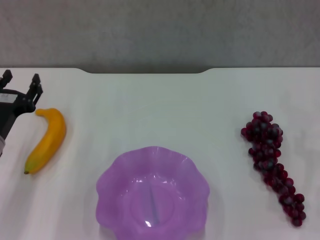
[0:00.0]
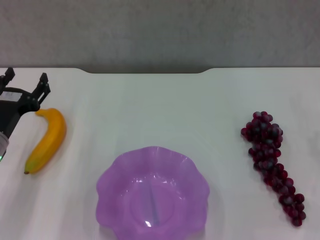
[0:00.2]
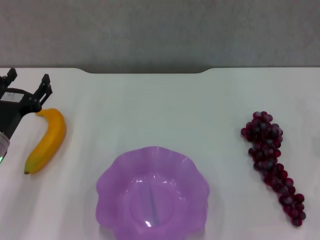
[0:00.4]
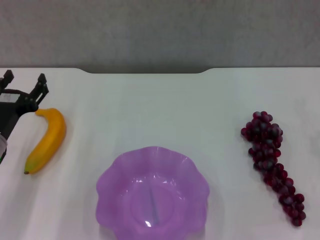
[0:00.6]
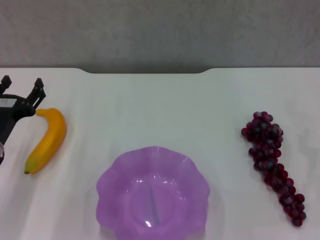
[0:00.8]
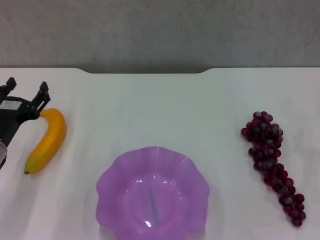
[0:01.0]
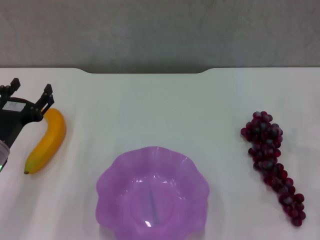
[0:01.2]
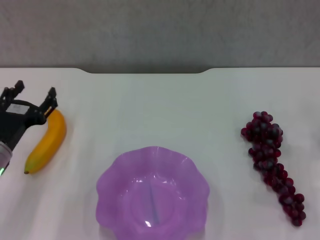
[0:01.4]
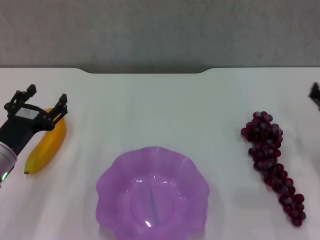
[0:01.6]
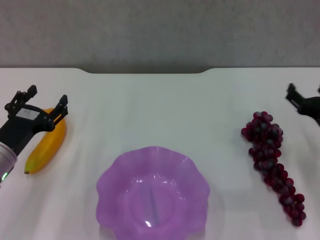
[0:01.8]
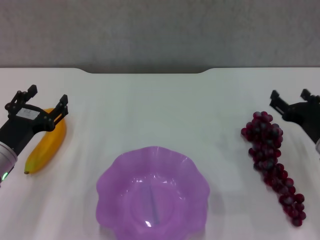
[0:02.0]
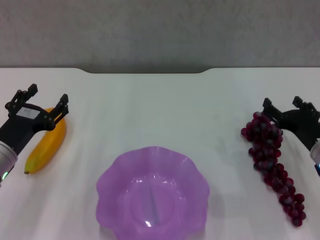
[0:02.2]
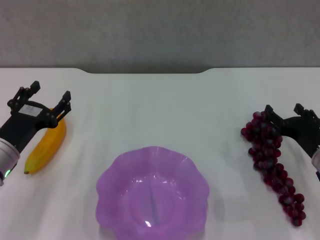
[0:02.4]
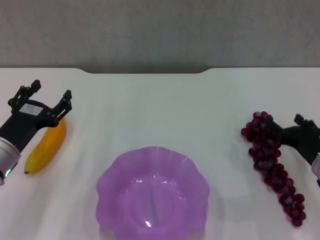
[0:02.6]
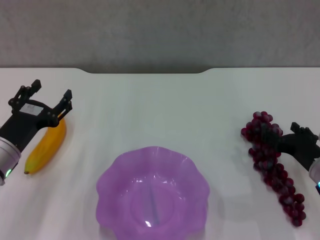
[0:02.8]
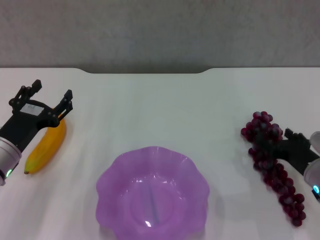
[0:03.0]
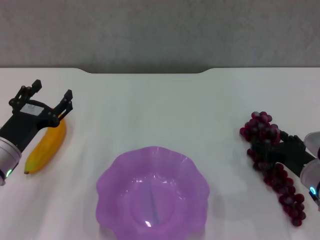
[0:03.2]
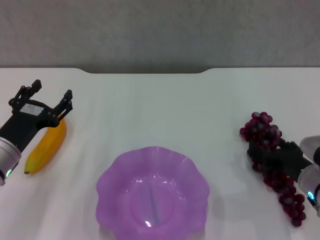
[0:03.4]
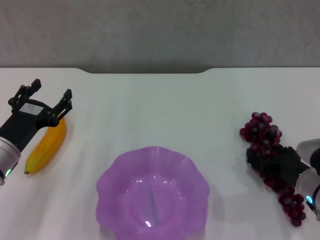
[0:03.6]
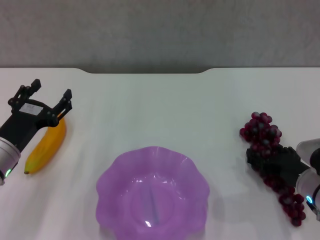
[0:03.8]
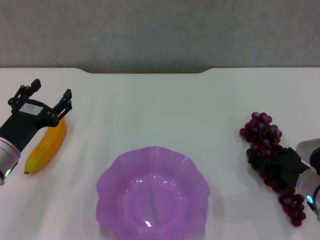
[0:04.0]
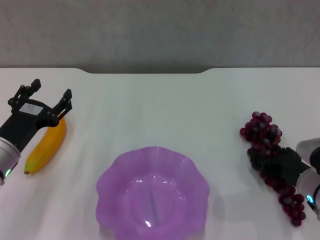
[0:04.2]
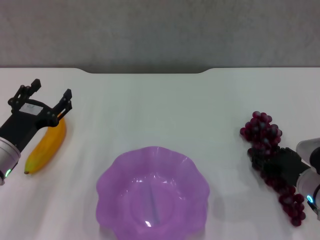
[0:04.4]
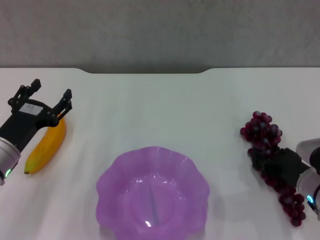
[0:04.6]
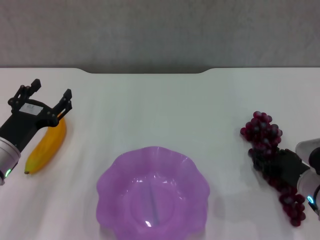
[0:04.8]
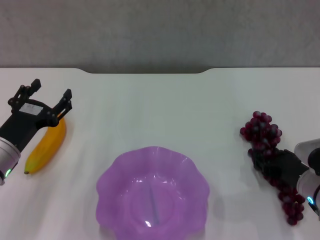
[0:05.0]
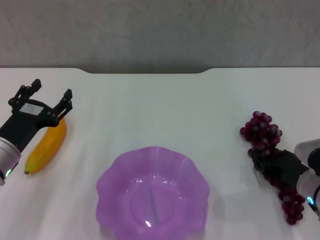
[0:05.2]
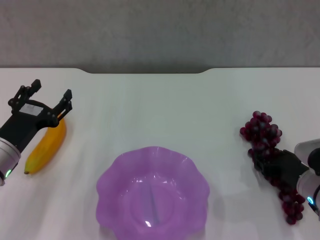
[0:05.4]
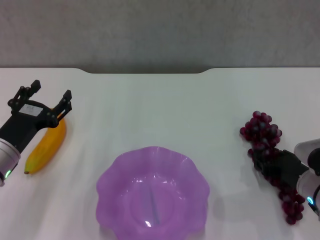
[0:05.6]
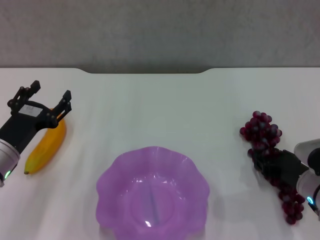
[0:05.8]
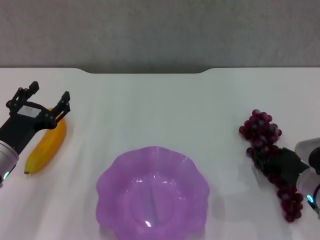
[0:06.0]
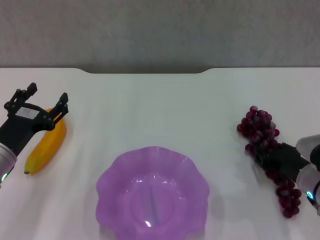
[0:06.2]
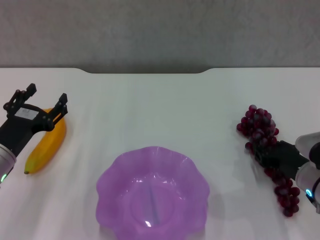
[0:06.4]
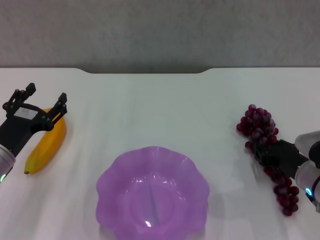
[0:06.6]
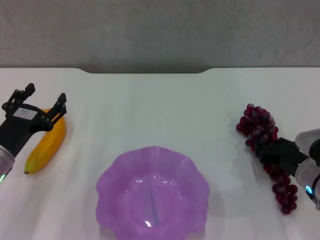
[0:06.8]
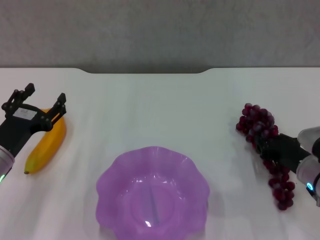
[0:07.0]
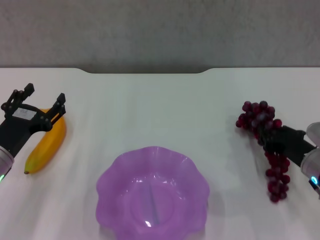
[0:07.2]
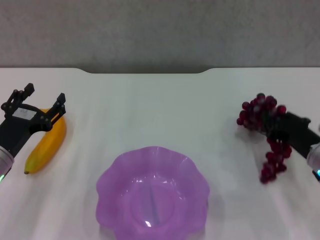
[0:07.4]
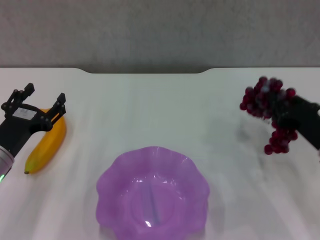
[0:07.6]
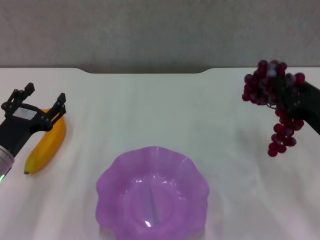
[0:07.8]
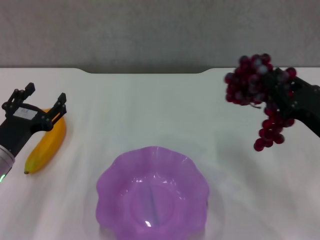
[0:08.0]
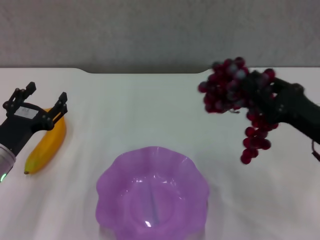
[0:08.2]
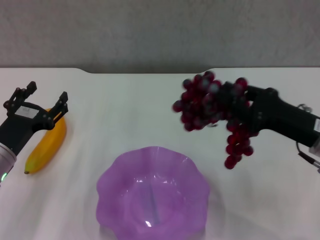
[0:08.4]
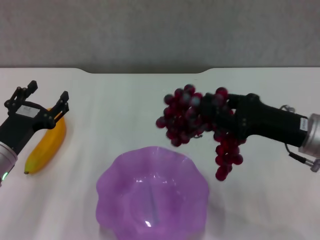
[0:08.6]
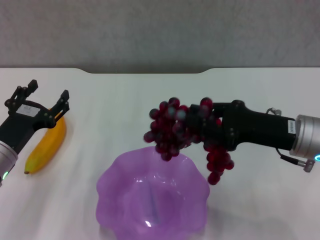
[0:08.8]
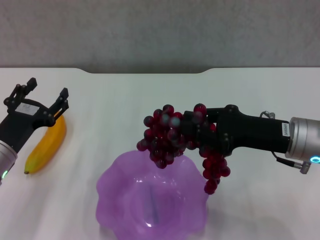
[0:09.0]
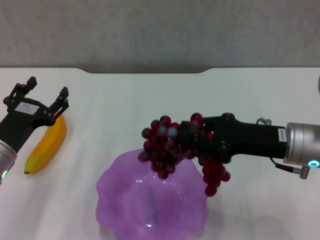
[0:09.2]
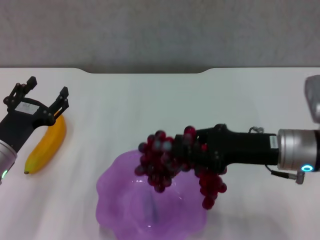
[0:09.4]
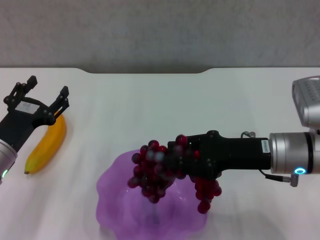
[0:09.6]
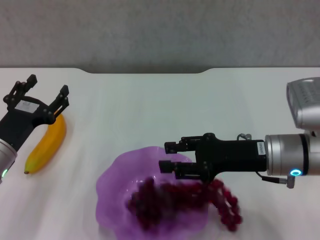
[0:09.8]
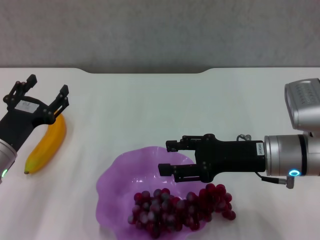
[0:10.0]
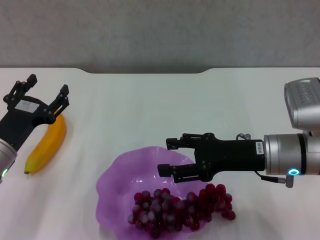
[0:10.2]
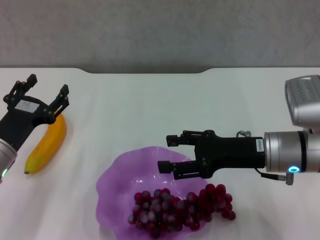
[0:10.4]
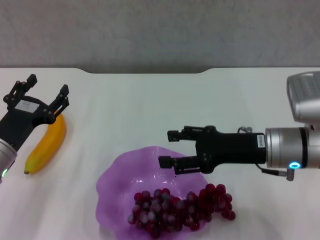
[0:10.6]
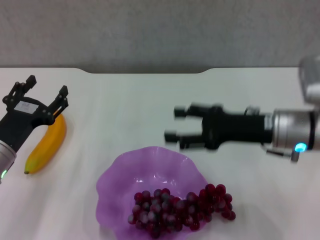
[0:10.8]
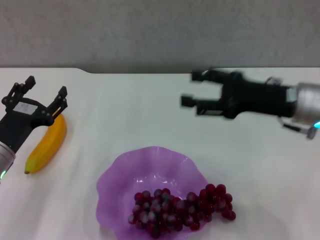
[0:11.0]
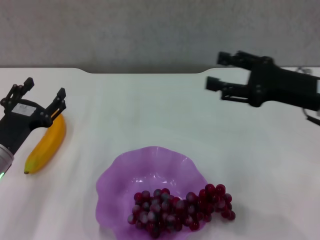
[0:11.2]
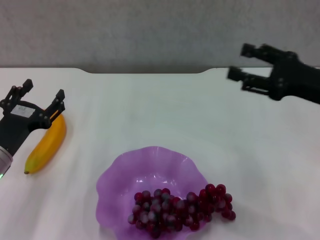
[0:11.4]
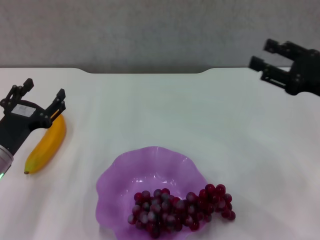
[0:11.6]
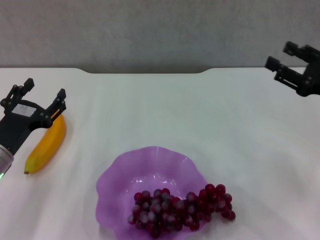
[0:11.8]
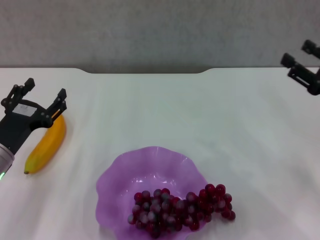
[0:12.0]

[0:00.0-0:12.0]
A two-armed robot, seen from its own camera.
Step, 0:00.0 to 0:06.0: Grasp the grape with right gripper.
Step, 0:06.2 to 0:10.2: Place the grape in the purple plate with right gripper.
0:00.0 to 0:01.6: The left gripper opens.
0:01.6 to 0:03.0: The right gripper moves to the left, approximately 5 cm.
0:03.0 to 0:04.4: The grippers stay close to where they were, moving slightly.
0:04.4 to 0:06.0: Neither gripper changes place.
0:06.0 to 0:07.6: The right gripper goes approximately 5 cm upward.
0:07.6 to 0:09.0: The right gripper heads upward and to the left, covering some 10 cm.
0:09.0 to 0:10.4: The right gripper opens.
0:10.4 to 0:12.0: The right gripper shifts about 15 cm to the right.

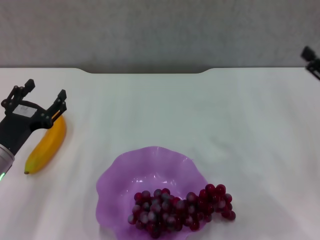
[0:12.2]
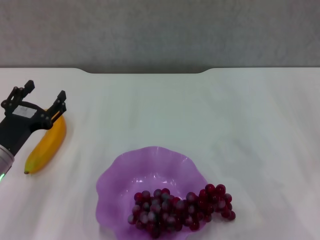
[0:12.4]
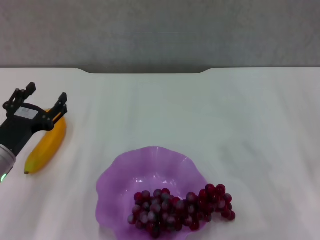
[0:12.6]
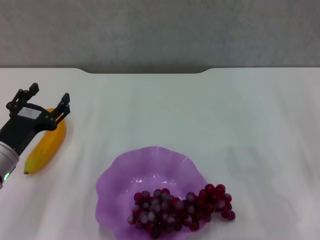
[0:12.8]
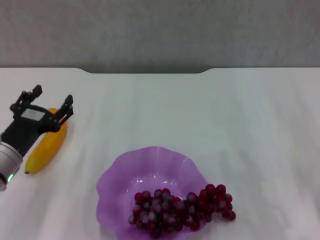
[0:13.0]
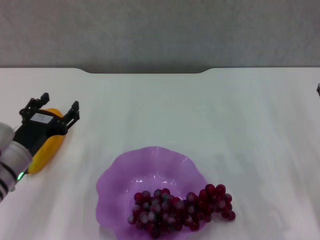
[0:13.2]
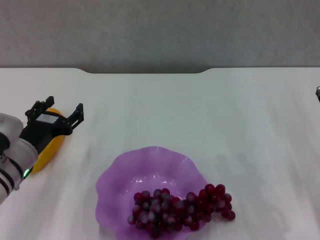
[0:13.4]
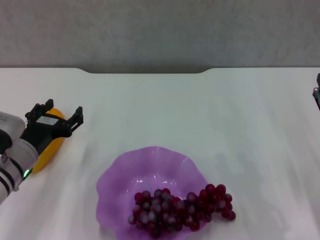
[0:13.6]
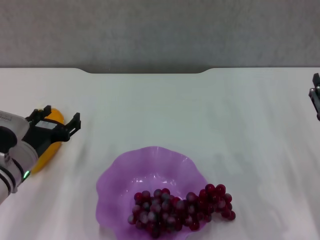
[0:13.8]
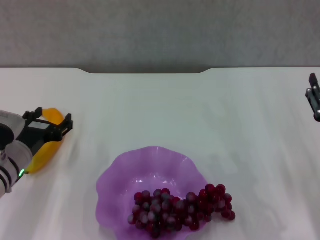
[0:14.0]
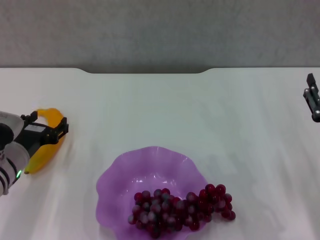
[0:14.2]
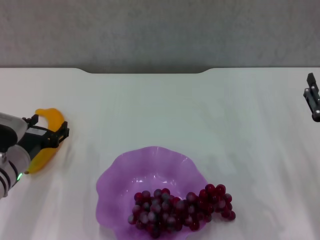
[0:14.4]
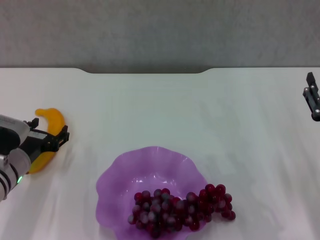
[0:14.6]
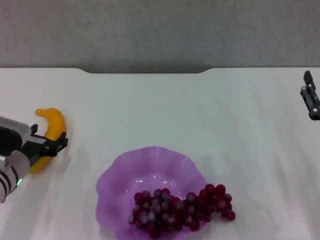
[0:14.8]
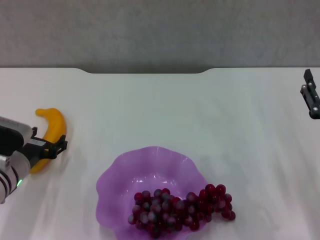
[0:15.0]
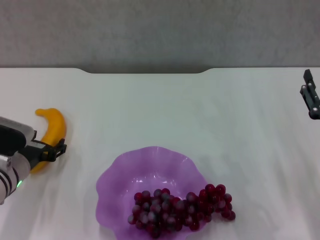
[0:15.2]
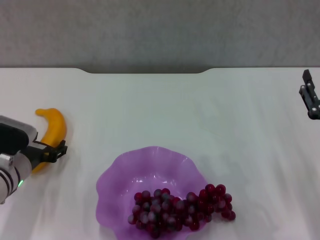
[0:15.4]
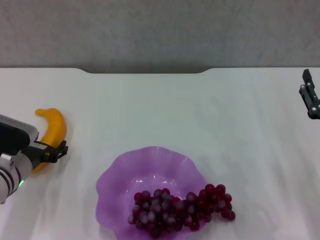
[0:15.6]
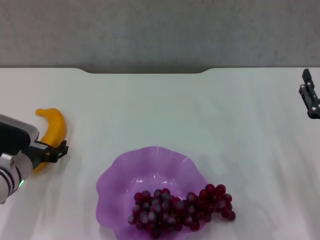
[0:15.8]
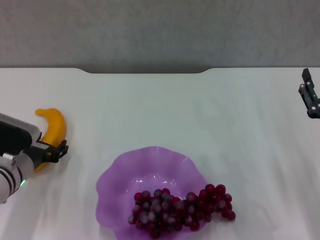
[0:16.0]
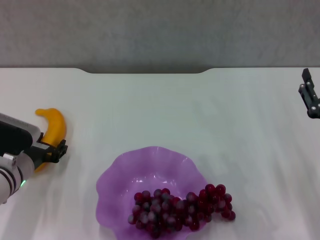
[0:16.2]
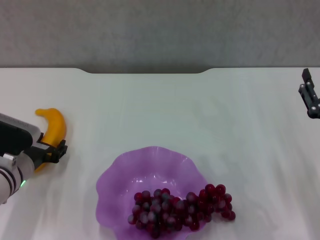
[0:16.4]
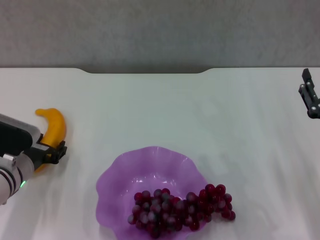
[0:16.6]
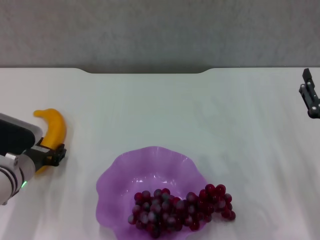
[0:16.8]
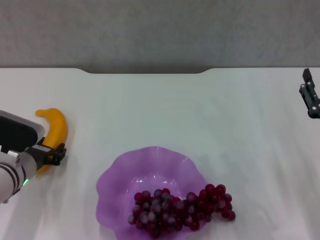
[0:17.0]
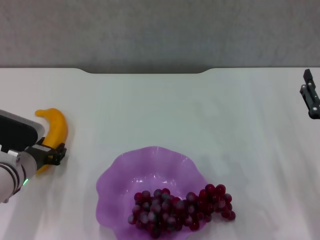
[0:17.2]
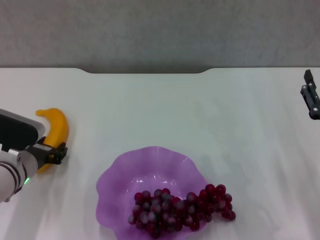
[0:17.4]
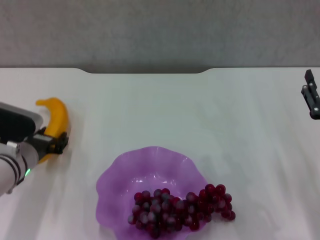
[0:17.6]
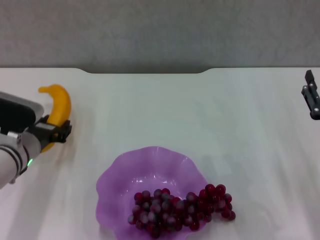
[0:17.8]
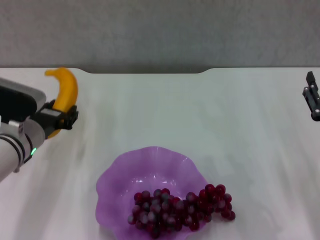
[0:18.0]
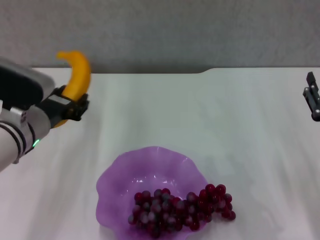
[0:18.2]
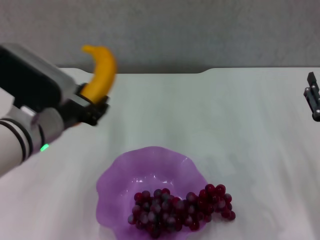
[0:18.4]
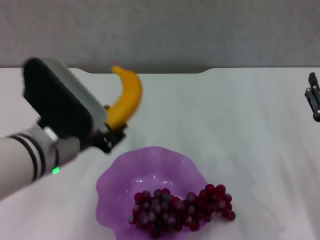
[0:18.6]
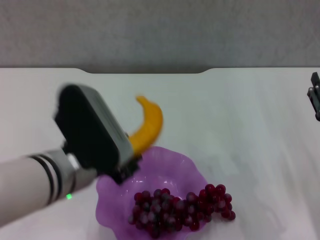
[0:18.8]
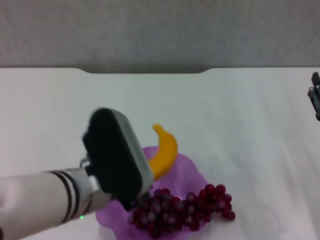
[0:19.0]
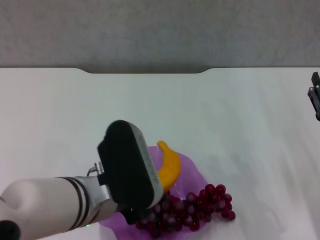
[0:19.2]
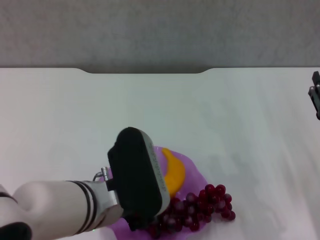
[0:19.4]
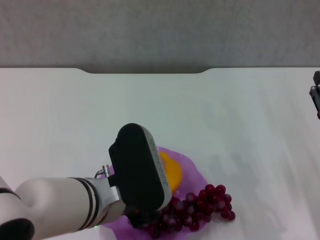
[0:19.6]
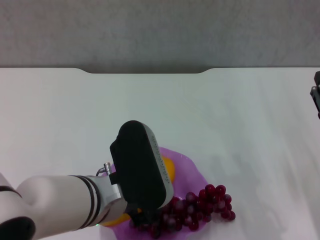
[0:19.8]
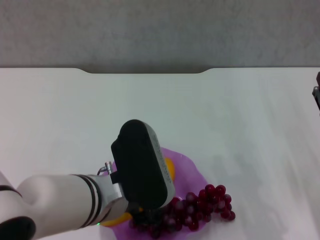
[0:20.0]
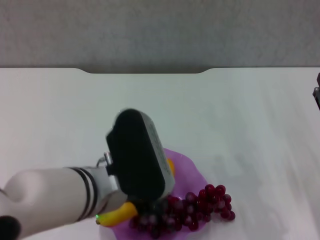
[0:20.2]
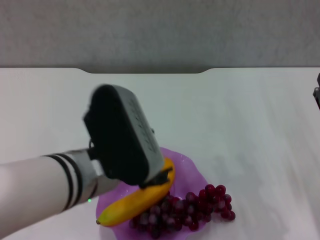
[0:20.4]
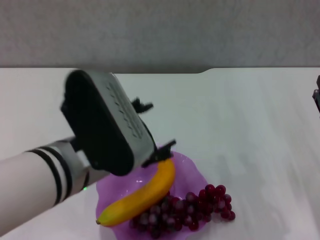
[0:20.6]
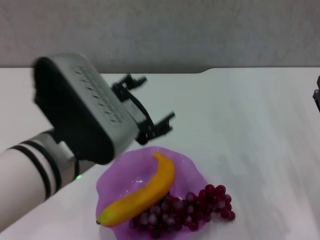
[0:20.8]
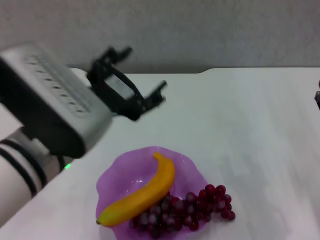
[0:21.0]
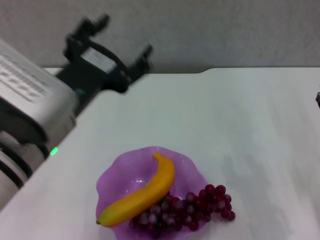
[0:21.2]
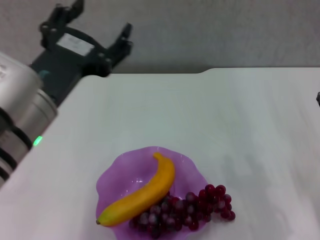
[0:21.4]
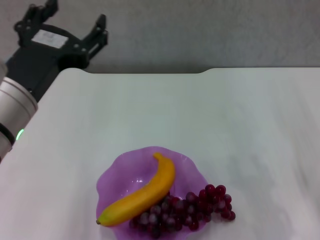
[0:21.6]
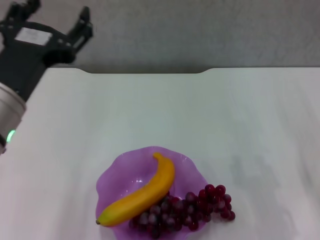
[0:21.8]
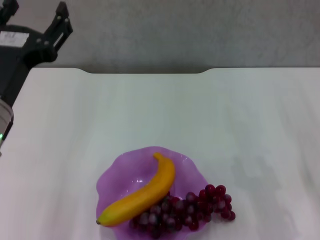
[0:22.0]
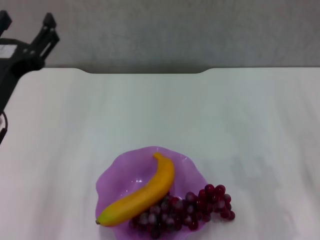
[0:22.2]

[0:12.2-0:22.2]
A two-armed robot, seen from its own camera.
Step, 0:12.2 to 0:17.2: Grasp the banana with left gripper.
Step, 0:17.4 to 0:20.2: Place the grape in the purple plate with left gripper.
0:12.2 to 0:13.6: The right gripper is displaced downward, backward and to the left by approximately 10 cm.
0:13.6 to 0:15.0: The grippers make only small movements.
0:15.0 to 0:16.4: The two grippers keep their place.
0:16.4 to 0:18.0: The left gripper goes some 5 cm upward.
0:18.0 to 0:19.4: The left gripper shifts about 20 cm to the right, backward and upward.
0:19.4 to 0:20.8: The left gripper goes roughly 5 cm upward.
0:20.8 to 0:22.2: The left gripper travels to the left by roughly 10 cm.
